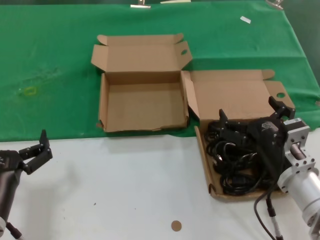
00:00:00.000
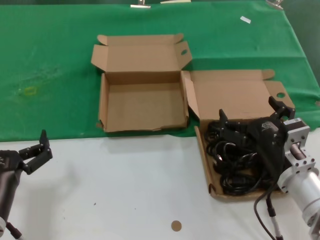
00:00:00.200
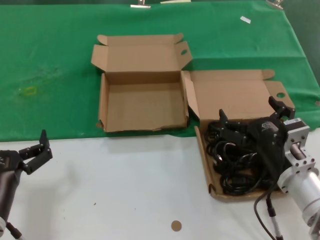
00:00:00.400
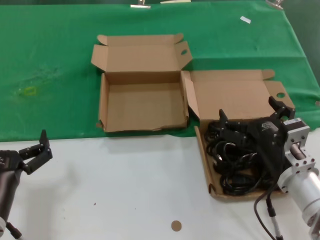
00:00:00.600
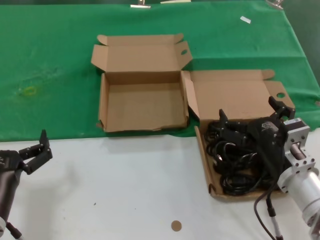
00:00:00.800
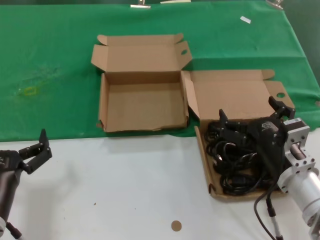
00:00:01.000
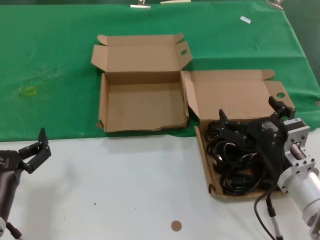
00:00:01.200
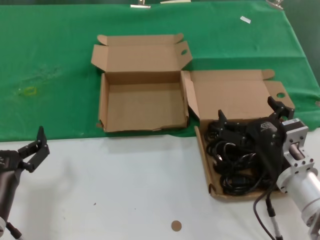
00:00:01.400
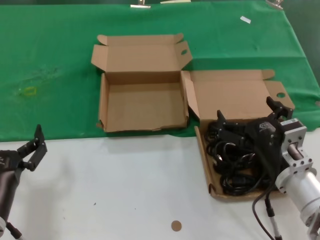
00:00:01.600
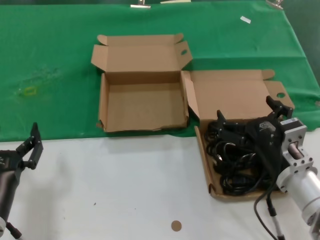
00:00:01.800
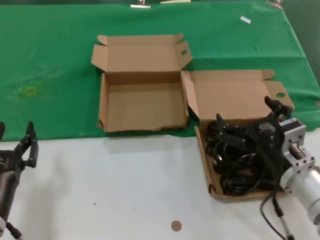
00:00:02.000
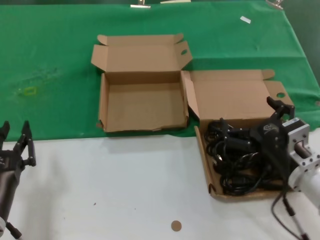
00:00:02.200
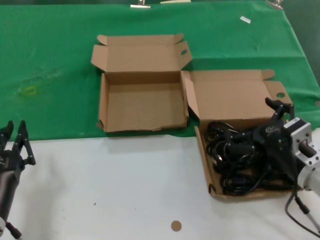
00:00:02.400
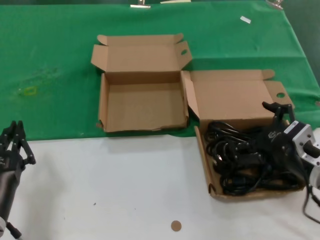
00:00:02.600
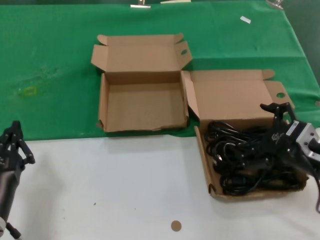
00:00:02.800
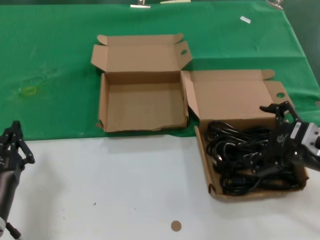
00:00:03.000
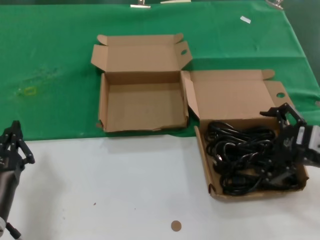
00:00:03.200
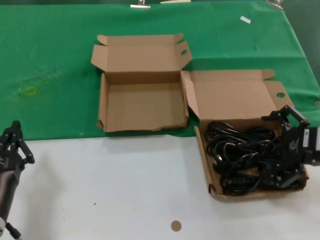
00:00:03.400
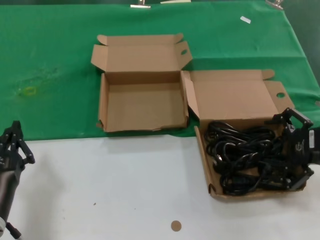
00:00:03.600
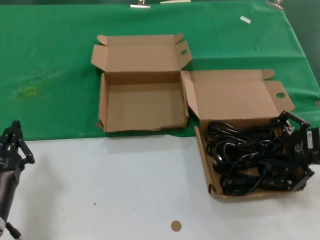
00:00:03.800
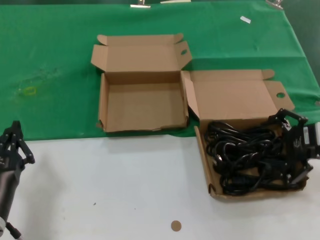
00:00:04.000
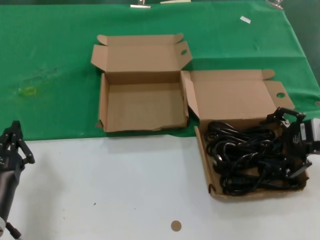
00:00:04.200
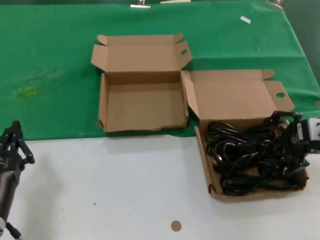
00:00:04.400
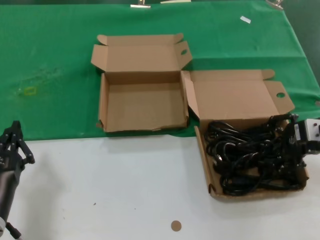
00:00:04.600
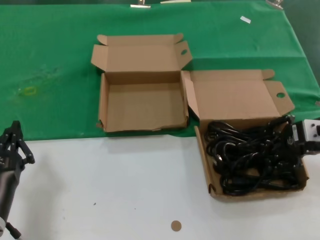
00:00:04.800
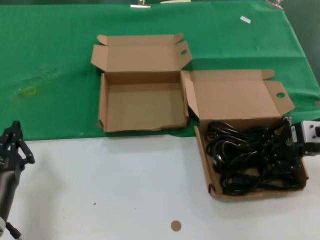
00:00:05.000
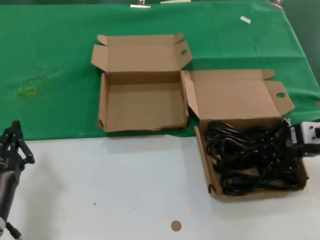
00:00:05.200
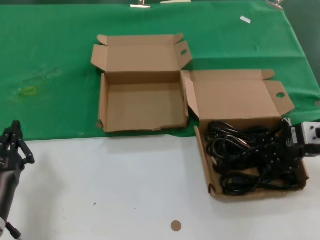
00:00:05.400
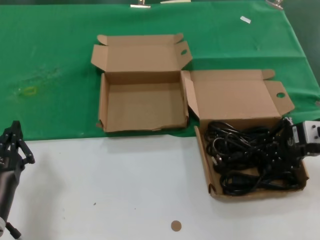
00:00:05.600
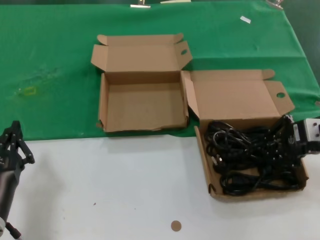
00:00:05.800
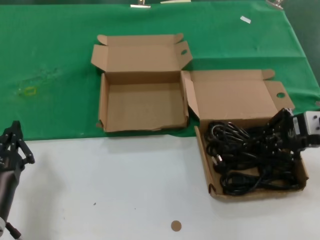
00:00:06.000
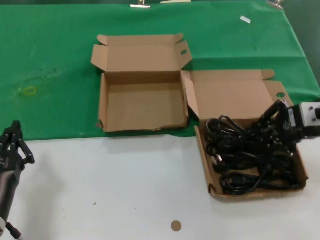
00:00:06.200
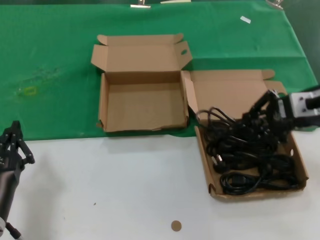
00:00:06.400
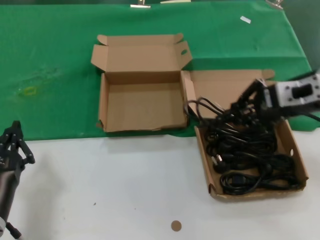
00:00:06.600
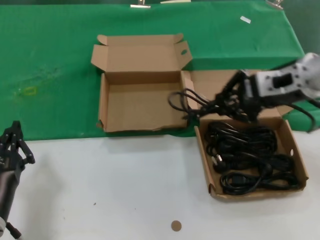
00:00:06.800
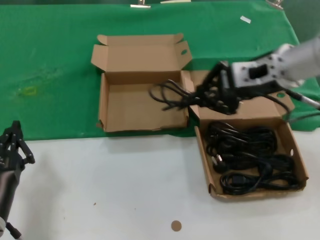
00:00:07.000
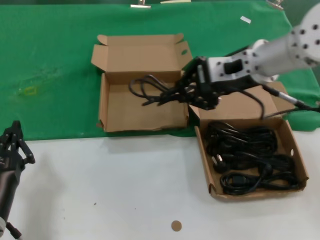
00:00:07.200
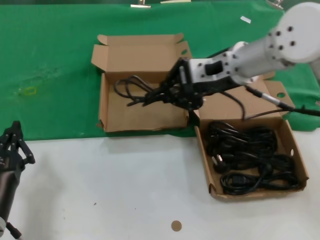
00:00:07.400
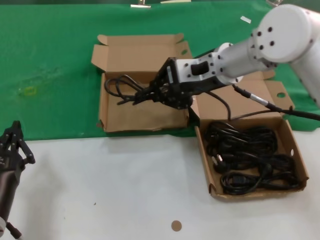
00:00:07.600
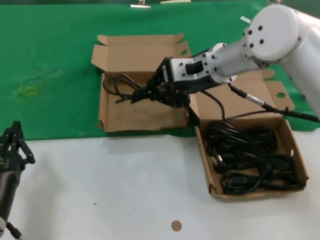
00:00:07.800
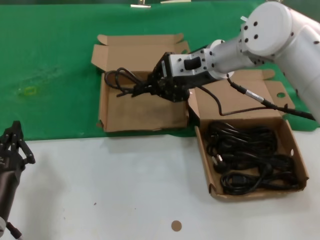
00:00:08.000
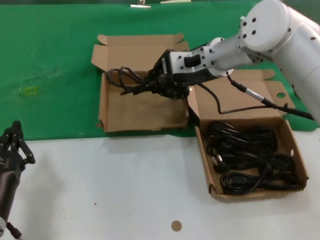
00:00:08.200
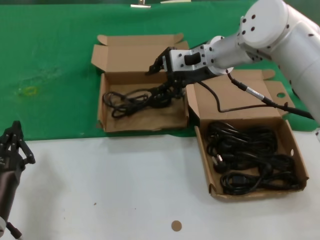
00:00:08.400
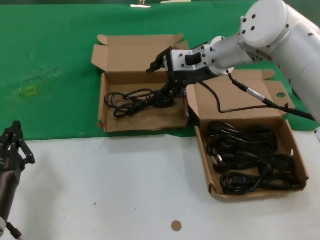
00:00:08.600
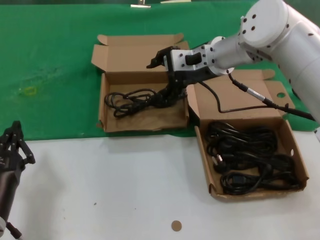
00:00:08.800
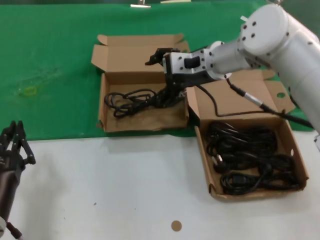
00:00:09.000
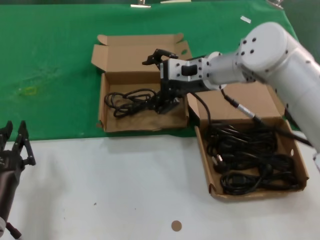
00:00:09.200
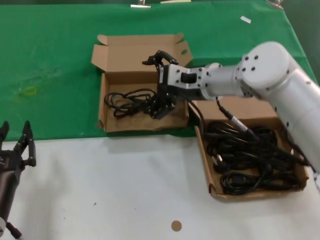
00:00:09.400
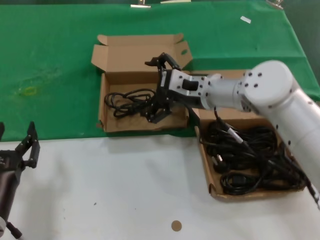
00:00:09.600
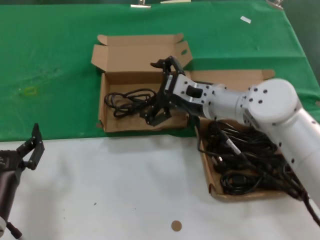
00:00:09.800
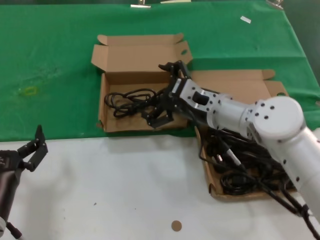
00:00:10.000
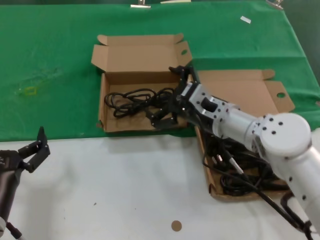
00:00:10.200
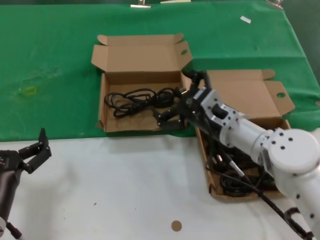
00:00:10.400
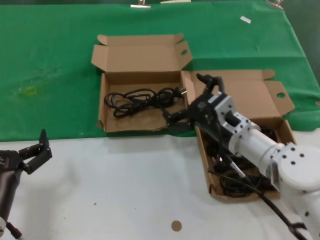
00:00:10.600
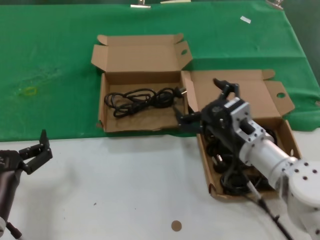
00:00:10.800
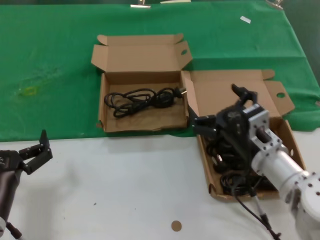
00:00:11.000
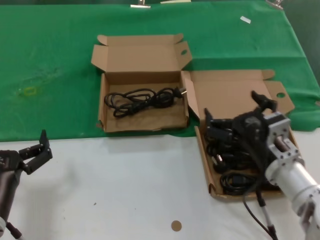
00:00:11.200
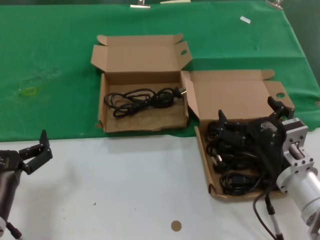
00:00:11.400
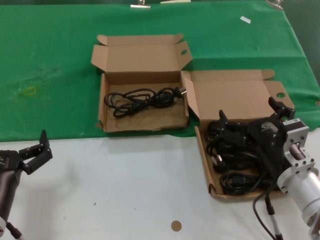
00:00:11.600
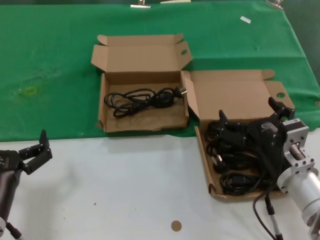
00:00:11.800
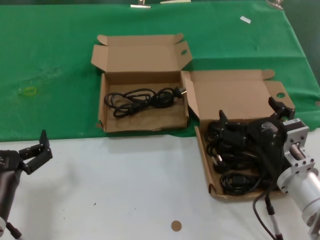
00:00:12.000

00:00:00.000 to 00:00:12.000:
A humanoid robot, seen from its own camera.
Task of the whole recording: take the parts from the box containing them and put them into an empty box.
Step, 00:00:00.000 to 00:00:05.200: Grasp the data cable.
Step, 00:00:05.400 to 00:00:08.400: Place the data cable in the another box.
00:00:00.000 to 00:00:01.600: Both hands stay about where they are.
00:00:01.600 to 00:00:03.000: The right hand heads to the right and upward, covering approximately 10 cm.
00:00:03.000 to 00:00:04.400: The right hand shifts roughly 5 cm forward.
00:00:04.400 to 00:00:06.000: The hands move only a little.
00:00:06.000 to 00:00:07.600: The right hand shifts approximately 25 cm to the left and forward.
00:00:07.600 to 00:00:09.000: The right hand shifts approximately 5 cm forward.
00:00:09.000 to 00:00:10.400: The right hand travels downward and backward by about 20 cm.
00:00:10.400 to 00:00:12.000: The right hand moves backward and to the right, about 15 cm.

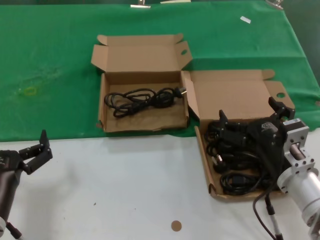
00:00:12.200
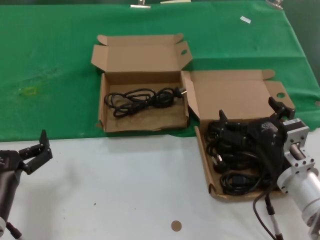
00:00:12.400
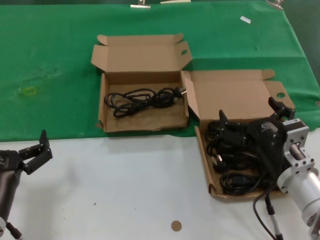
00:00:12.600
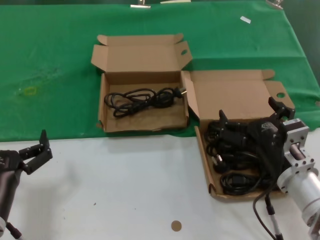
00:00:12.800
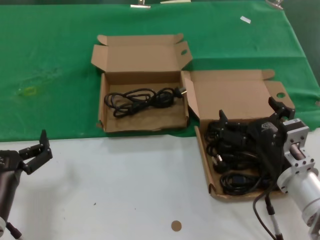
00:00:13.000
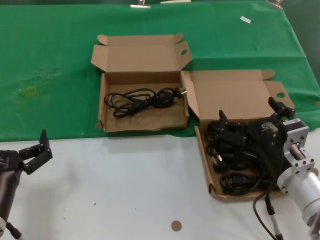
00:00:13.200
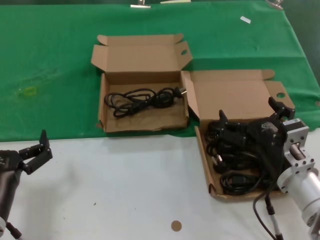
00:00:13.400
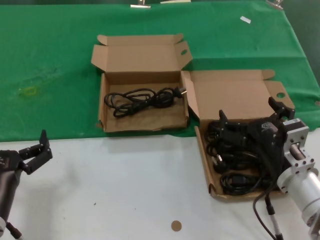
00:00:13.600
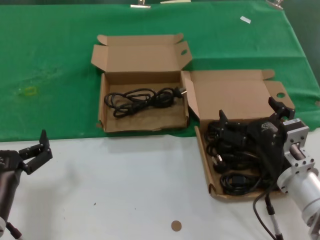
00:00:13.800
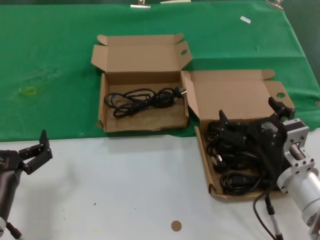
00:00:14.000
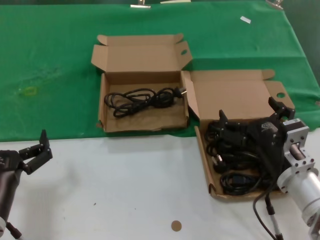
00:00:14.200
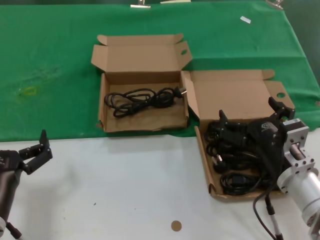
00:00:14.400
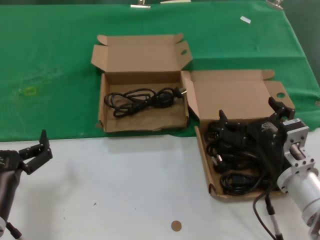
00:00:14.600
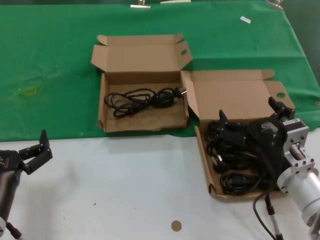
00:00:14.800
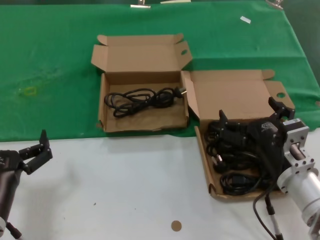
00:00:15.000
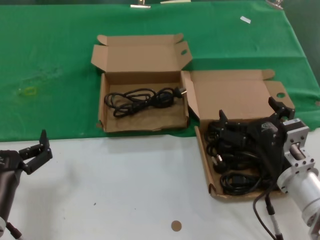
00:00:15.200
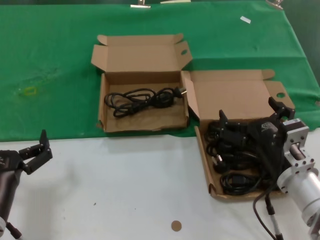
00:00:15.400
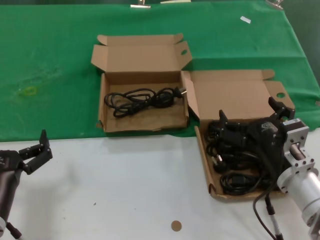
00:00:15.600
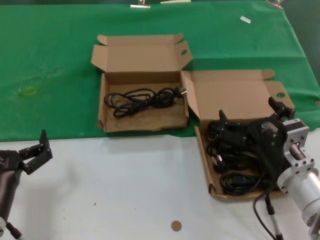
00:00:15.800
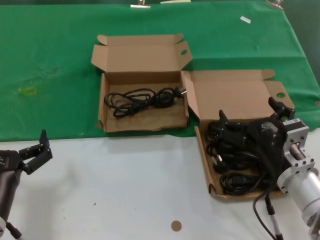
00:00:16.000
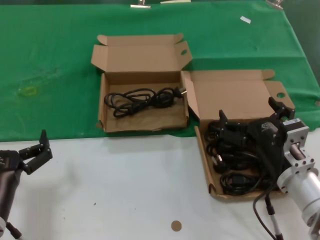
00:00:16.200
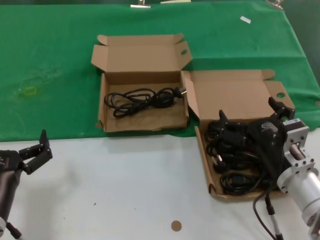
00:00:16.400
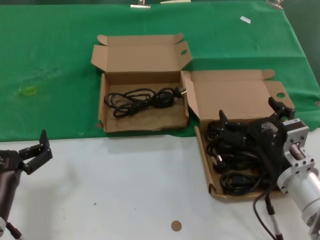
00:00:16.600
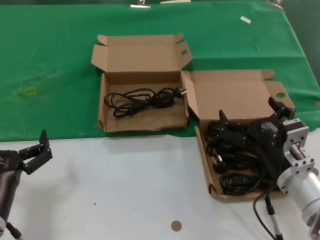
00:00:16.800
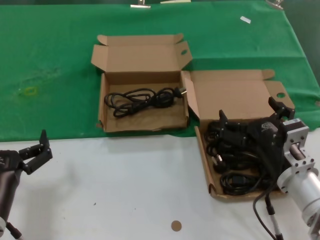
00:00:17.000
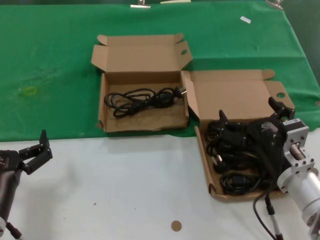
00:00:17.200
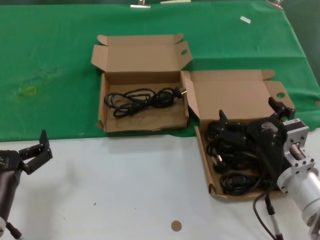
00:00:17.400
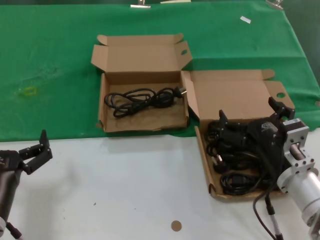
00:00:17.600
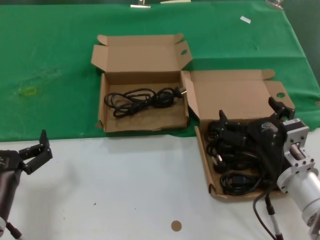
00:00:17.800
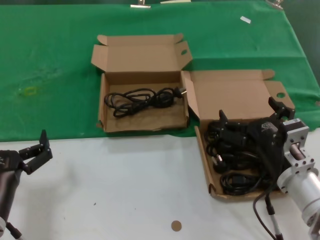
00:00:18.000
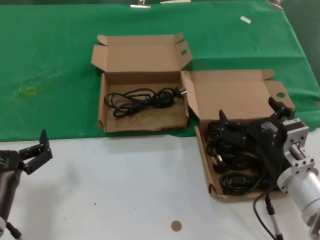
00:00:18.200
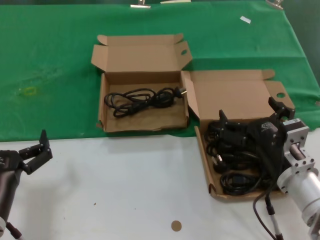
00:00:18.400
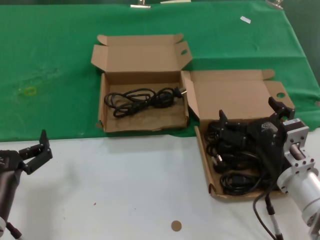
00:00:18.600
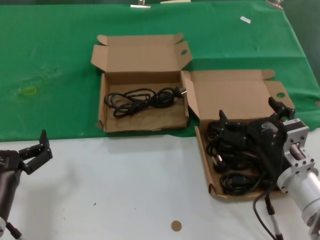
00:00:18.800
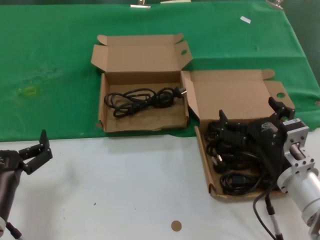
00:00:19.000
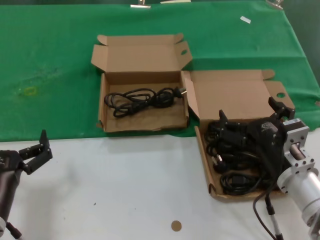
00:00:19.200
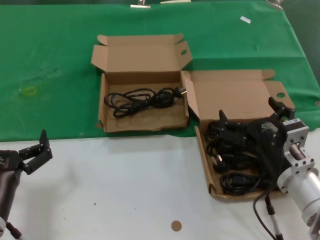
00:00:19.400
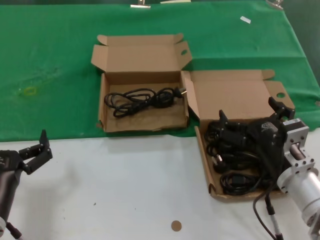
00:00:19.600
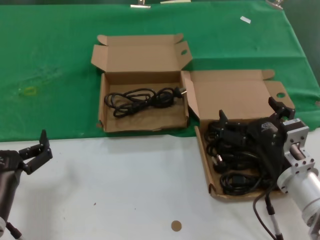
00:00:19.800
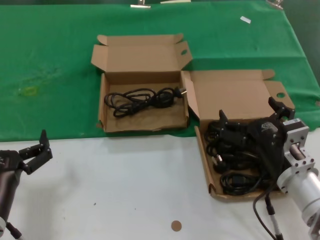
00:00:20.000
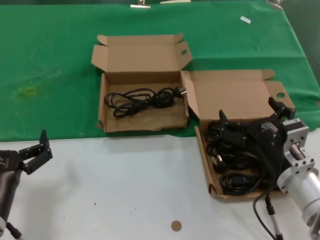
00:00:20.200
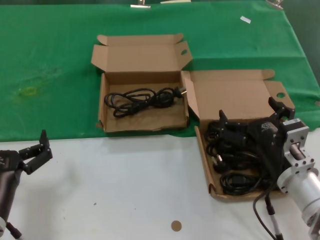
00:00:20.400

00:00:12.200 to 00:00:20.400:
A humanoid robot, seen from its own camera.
Task of the whole recording: take the parts from the box containing them and put them into an empty box.
00:00:12.200 to 00:00:20.400: The two hands keep their place.
